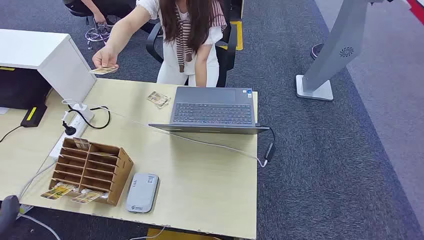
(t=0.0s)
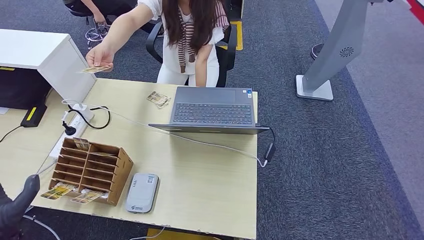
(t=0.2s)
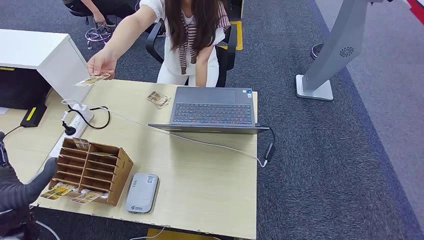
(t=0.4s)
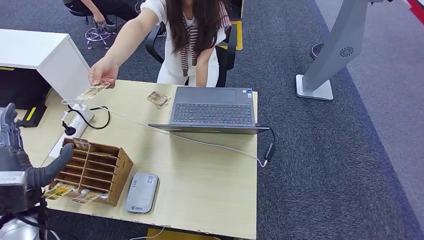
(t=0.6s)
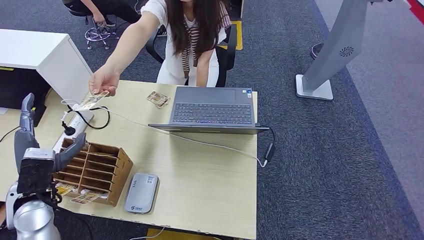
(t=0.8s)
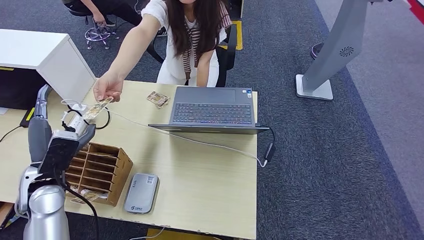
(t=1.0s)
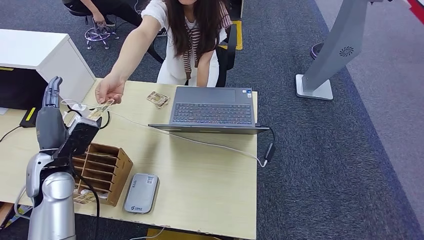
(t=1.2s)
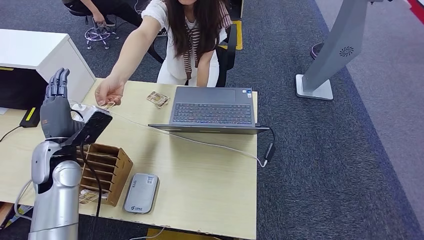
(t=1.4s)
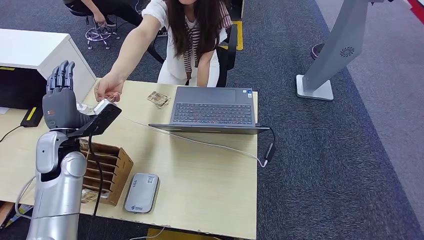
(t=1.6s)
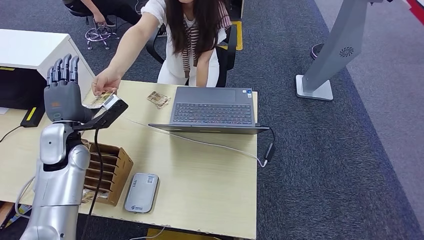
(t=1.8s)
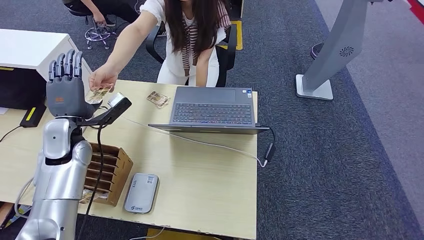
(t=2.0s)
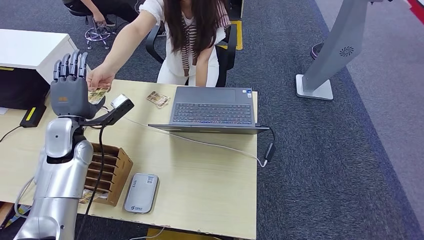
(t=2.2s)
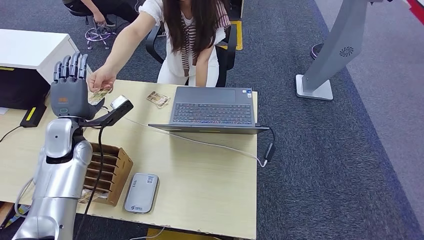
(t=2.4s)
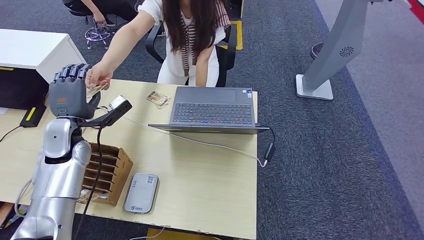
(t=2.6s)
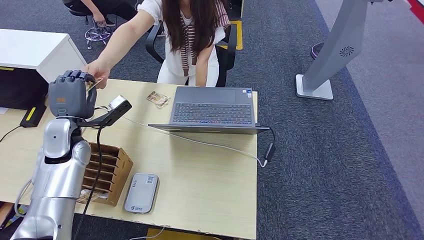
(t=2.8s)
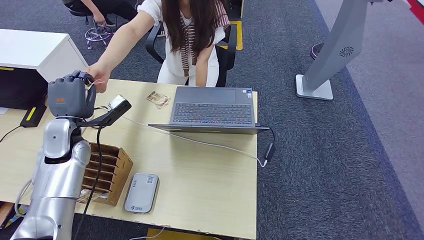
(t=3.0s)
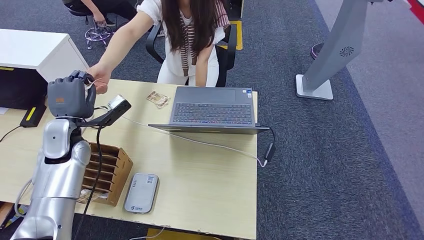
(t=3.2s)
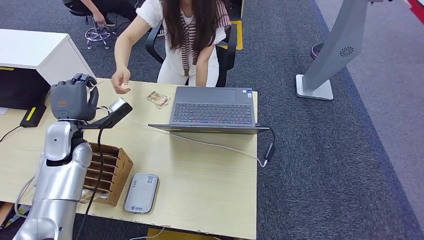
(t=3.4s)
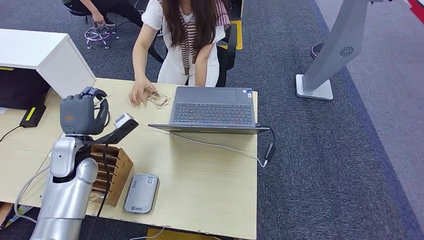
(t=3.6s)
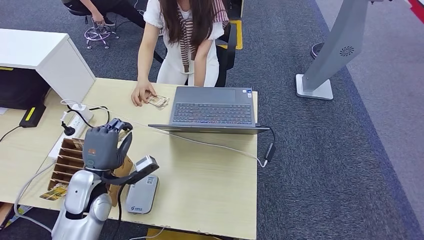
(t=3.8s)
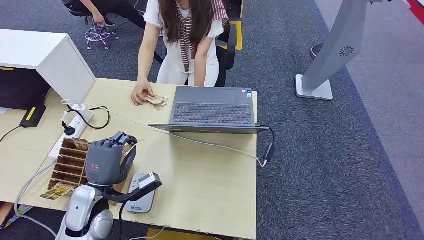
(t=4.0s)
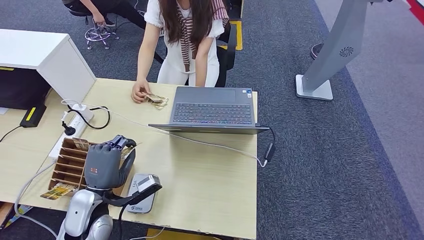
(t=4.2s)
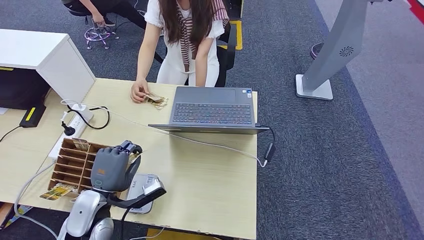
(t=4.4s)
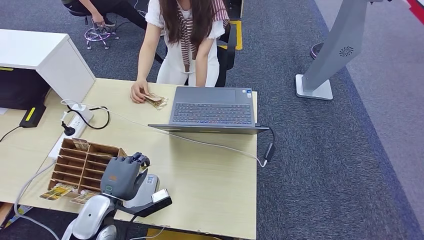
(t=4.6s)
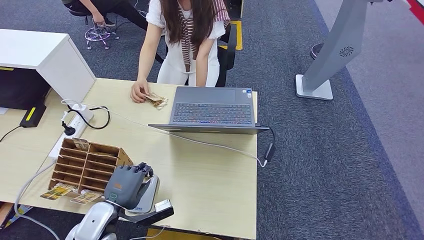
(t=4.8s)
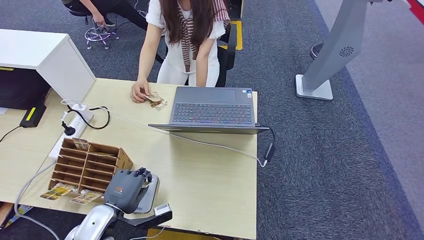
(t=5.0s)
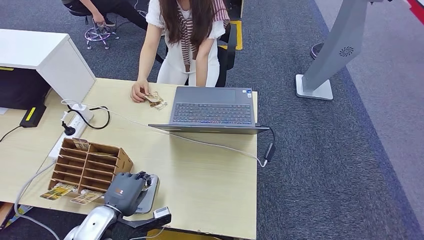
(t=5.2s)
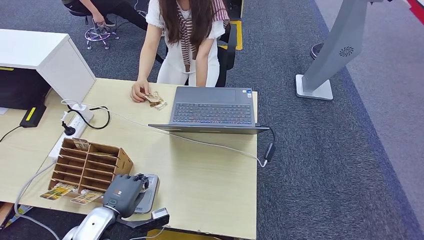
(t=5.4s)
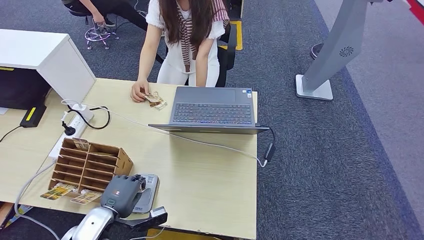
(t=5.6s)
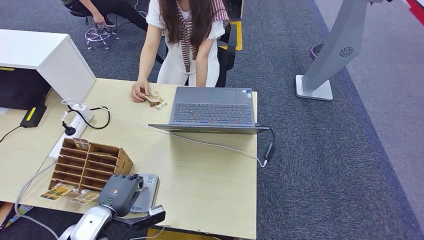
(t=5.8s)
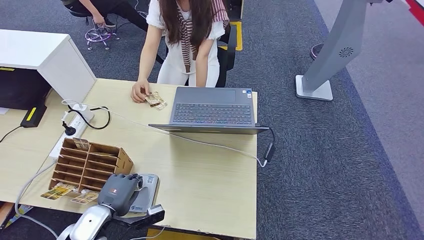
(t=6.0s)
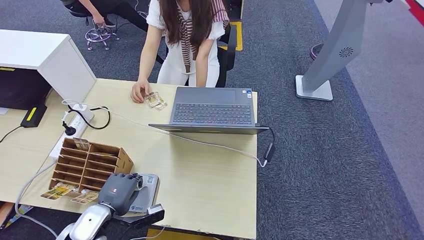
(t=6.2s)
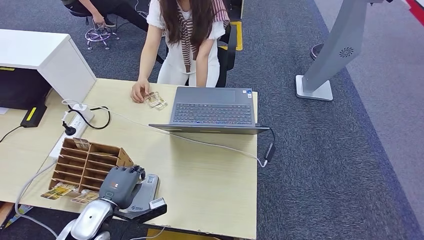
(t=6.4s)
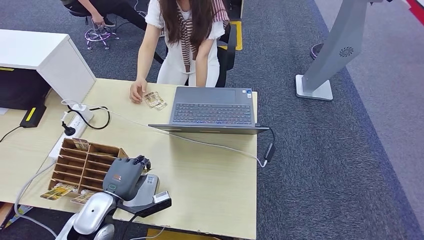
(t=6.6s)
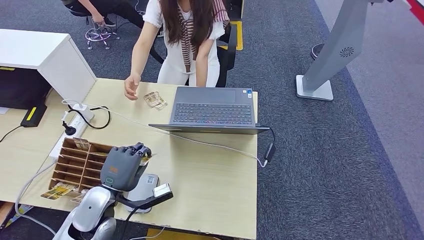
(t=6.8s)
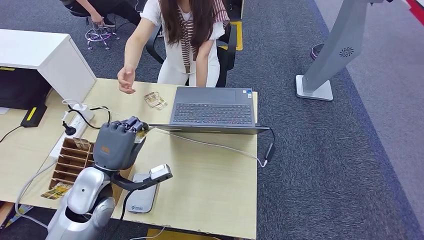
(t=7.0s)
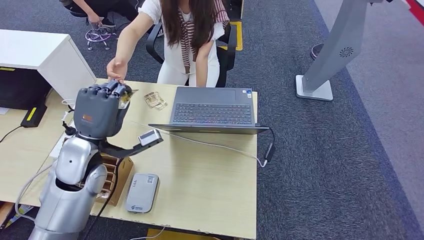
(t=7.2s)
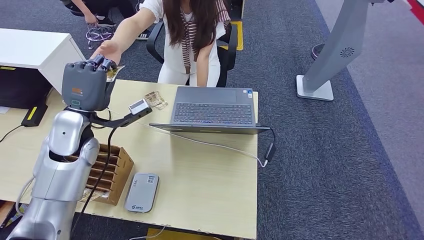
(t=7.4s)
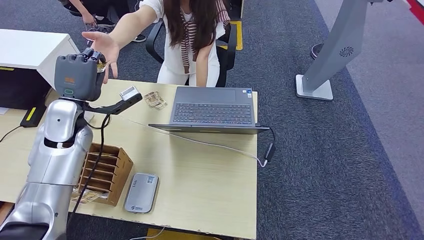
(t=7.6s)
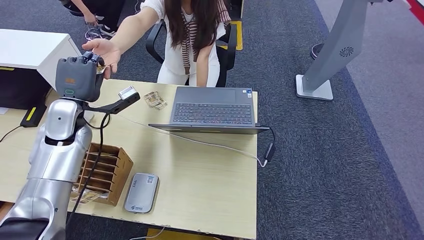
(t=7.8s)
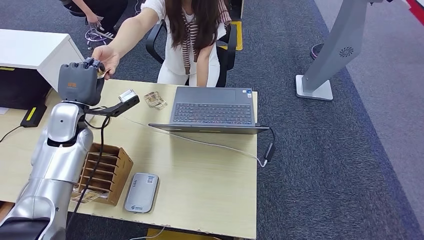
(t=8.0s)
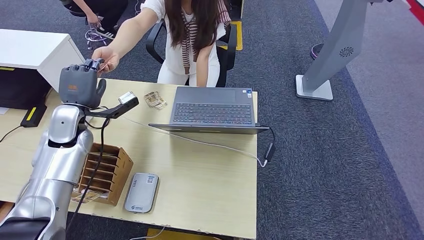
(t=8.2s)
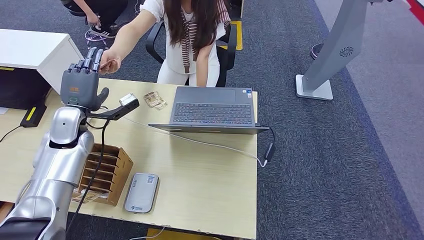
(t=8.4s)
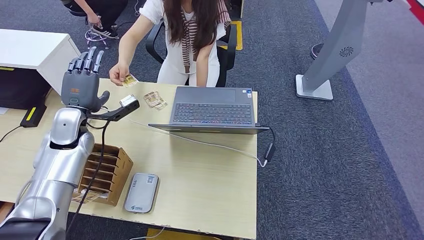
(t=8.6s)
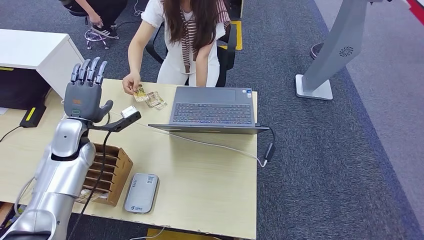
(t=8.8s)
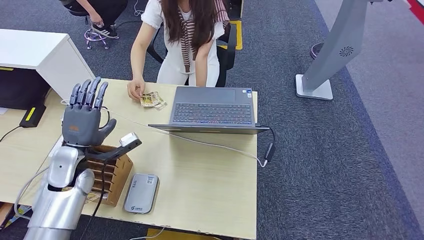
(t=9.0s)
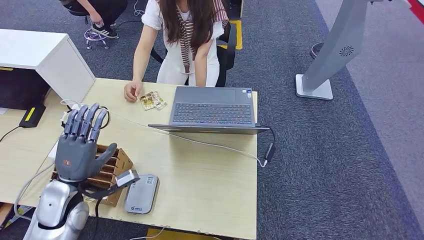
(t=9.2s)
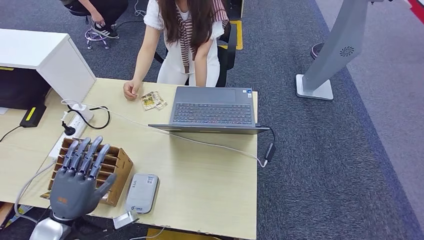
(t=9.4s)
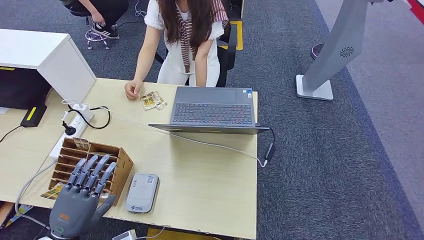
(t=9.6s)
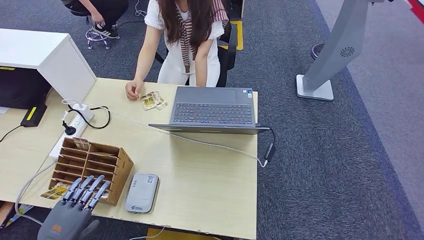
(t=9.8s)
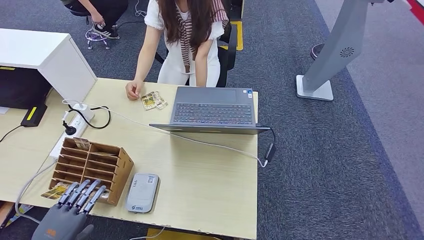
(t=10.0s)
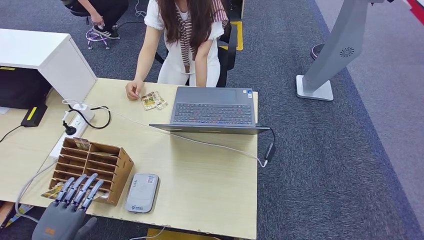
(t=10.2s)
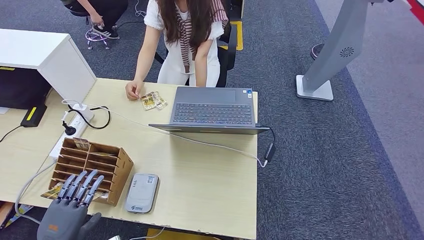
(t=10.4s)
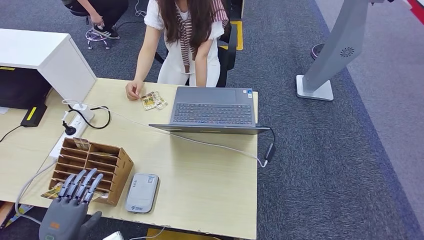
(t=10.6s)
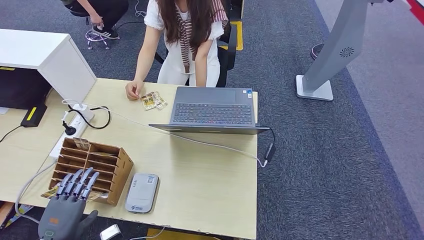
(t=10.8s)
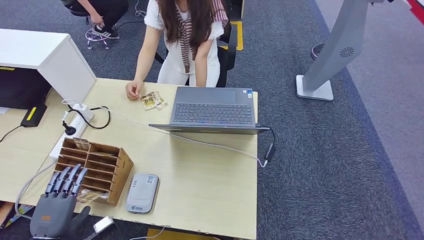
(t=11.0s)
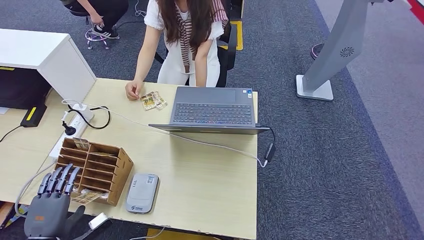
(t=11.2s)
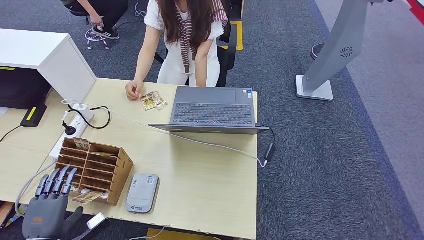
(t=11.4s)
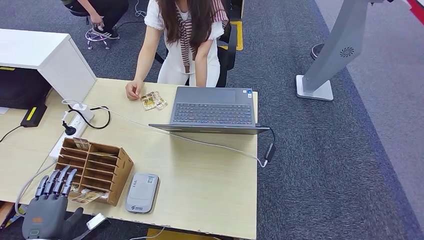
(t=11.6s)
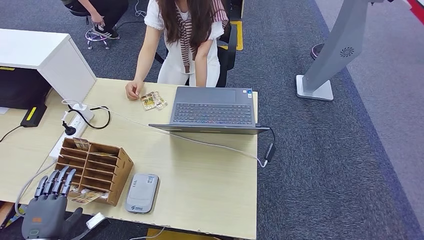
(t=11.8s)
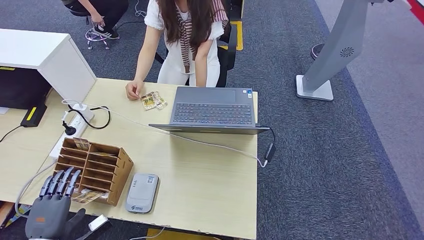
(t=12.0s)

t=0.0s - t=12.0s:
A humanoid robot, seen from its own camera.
Step, t=0.0s - t=3.4s: Take the ID card from the person's hand.
Step, t=3.6s - t=6.0s: Place the ID card on the card reader.
Step, t=6.2s - t=8.4s: Hand the ID card to the person.
t=1.6s - t=3.0s: The hands move only a little.
t=3.0s - t=4.4s: The left hand heads backward, to the right and downward, covering about 20 cm.
t=4.4s - t=6.0s: The left hand goes roughly 5 cm downward.
t=6.0s - t=7.6s: The left hand heads upward and forward, covering approximately 25 cm.
t=7.6s - t=9.0s: The left hand heads downward and backward, covering some 10 cm.
t=9.0s - t=10.4s: The left hand moves backward, approximately 20 cm.
t=10.4s - t=12.0s: There are only small adjustments of the hands.

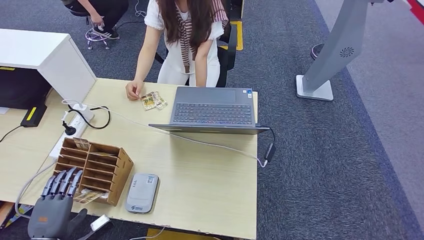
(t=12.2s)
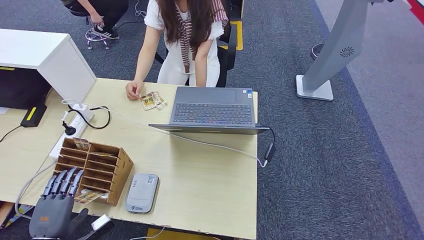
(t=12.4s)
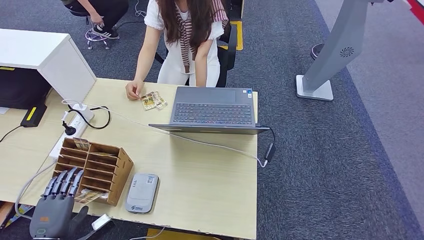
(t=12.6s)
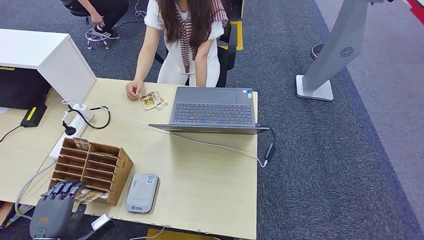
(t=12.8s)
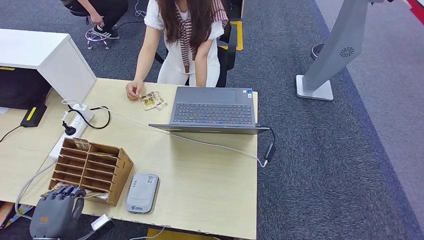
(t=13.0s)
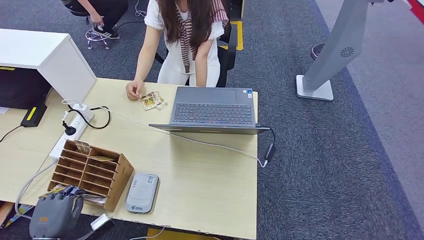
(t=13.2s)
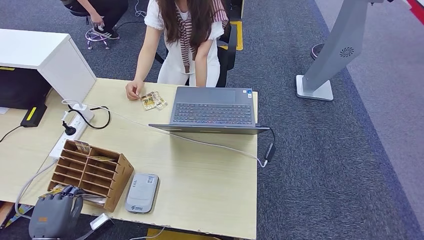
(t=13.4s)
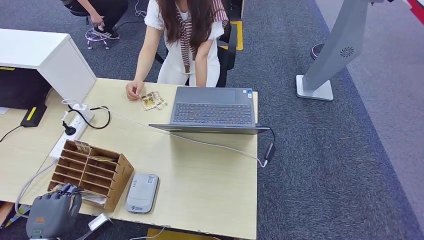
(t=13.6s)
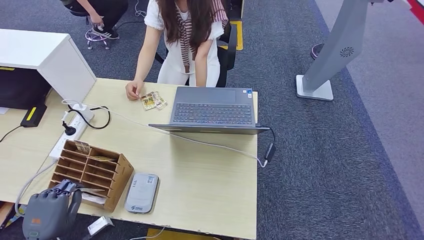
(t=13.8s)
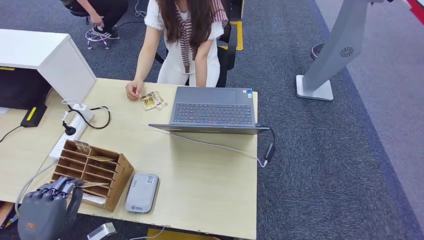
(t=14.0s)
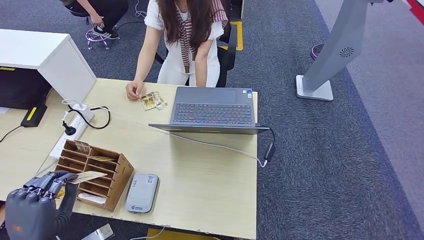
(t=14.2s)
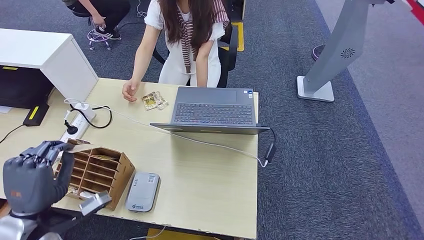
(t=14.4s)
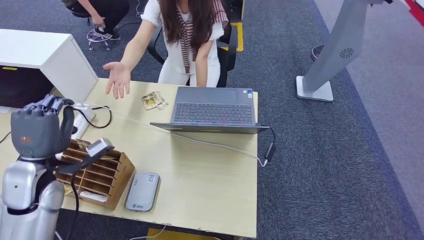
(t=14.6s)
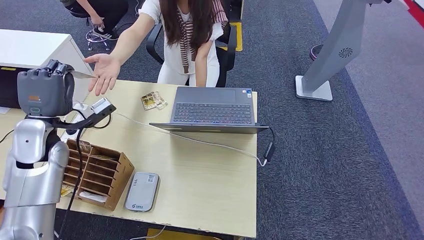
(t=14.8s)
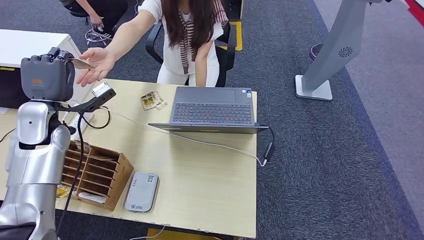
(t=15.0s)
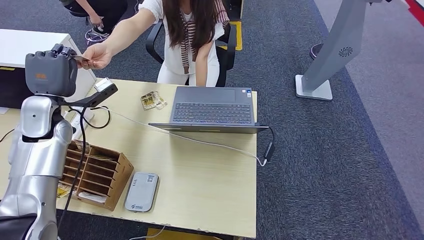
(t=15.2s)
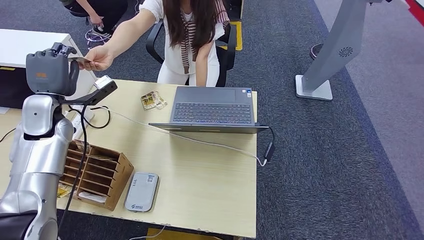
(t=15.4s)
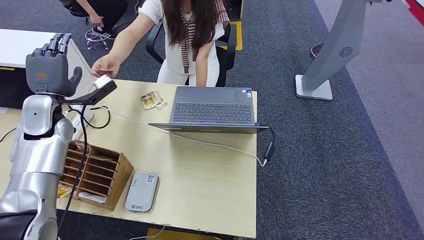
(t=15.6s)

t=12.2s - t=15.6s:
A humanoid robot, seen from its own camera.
Step, t=12.2s - t=14.4s: Pick up the room key from the key card box.
Step, t=14.8s - t=15.6s: Hand the room key to the person.
t=12.2s - t=13.8s: The hands make only small movements.
t=13.8s - t=15.6s: The left hand moves forward and upward, roughly 35 cm.
